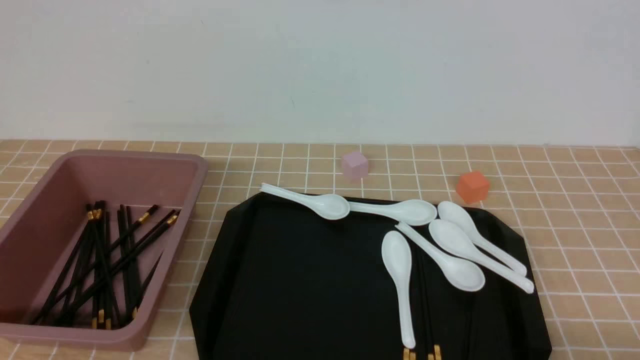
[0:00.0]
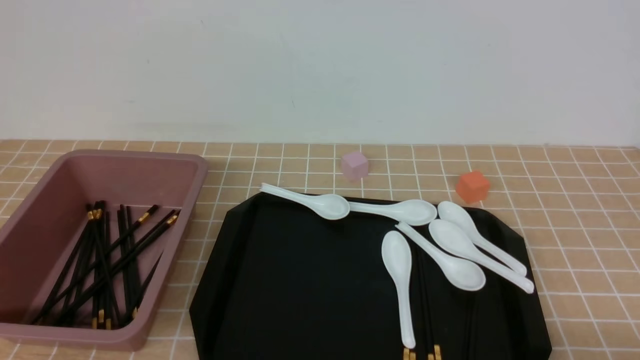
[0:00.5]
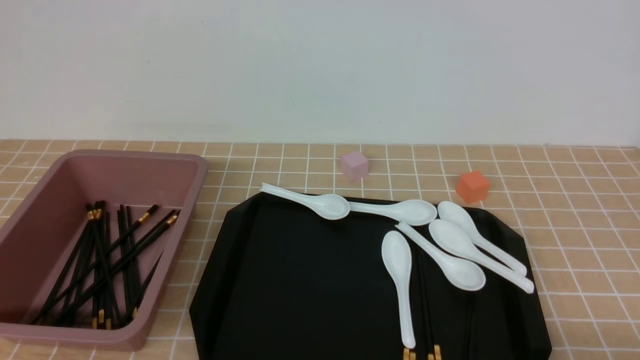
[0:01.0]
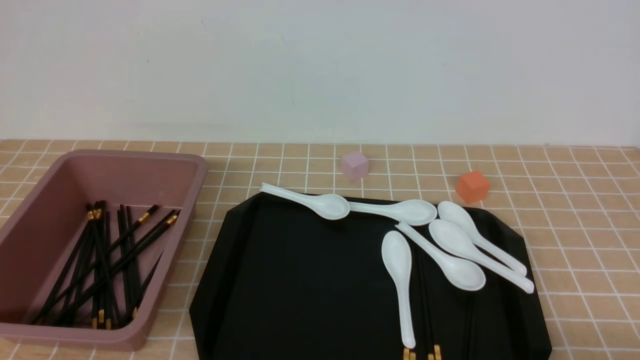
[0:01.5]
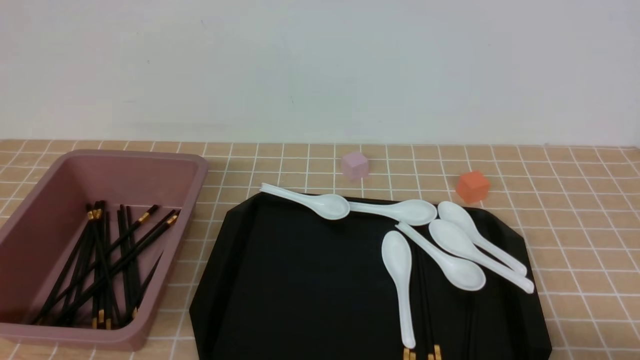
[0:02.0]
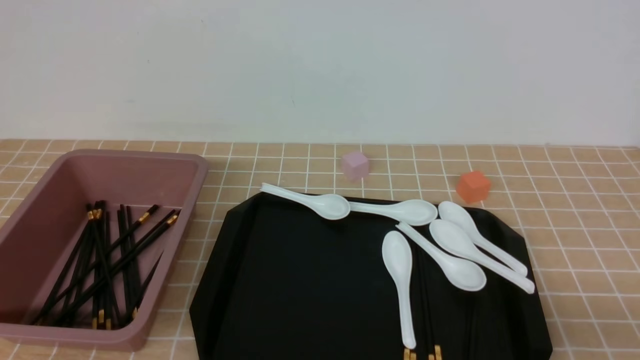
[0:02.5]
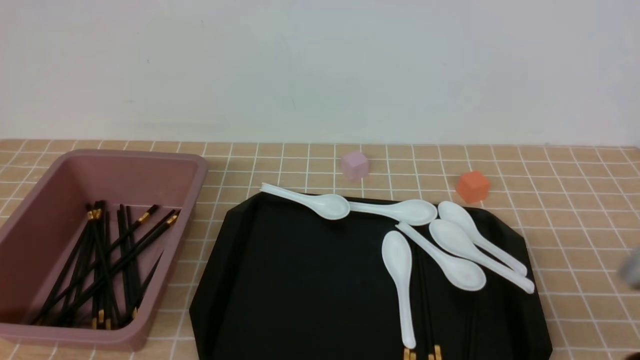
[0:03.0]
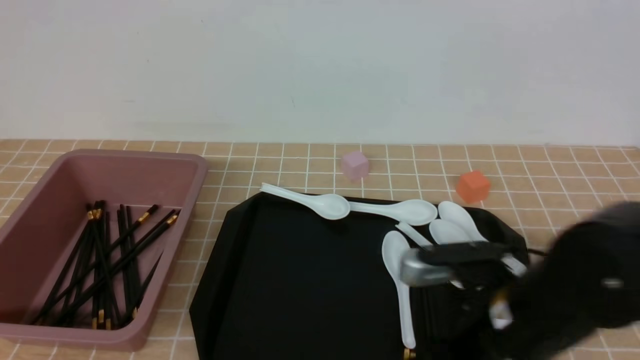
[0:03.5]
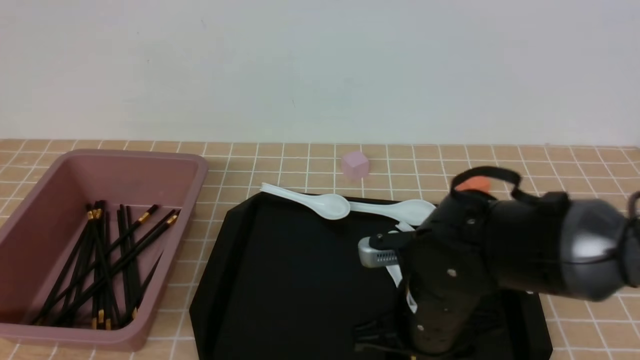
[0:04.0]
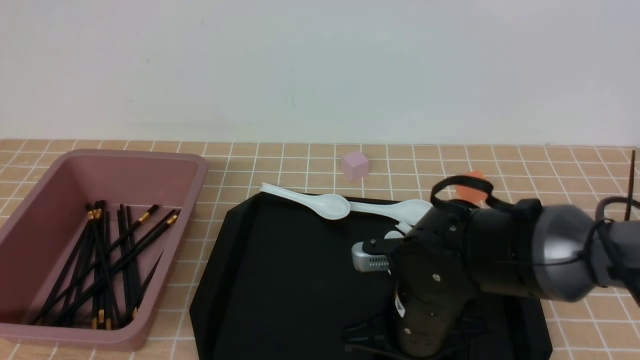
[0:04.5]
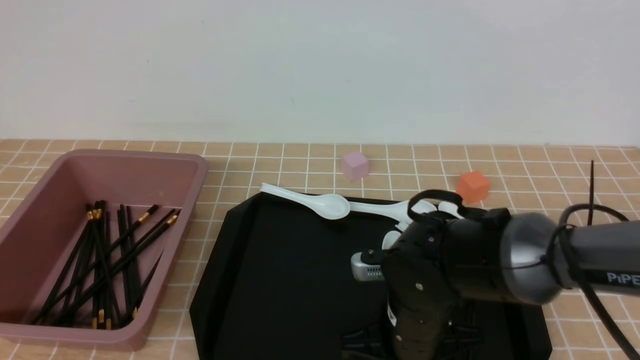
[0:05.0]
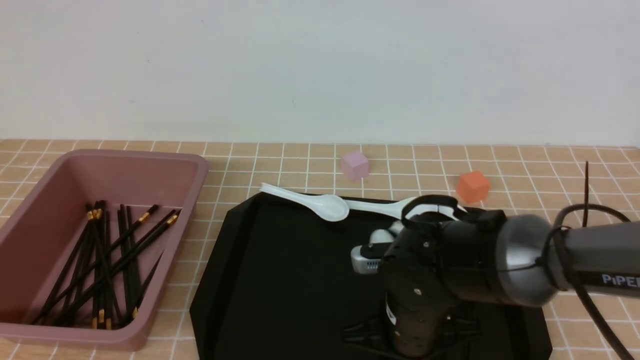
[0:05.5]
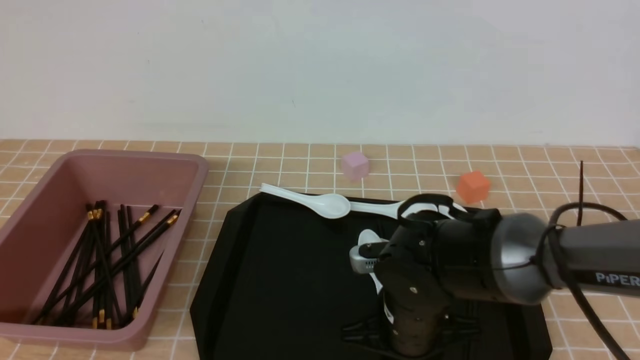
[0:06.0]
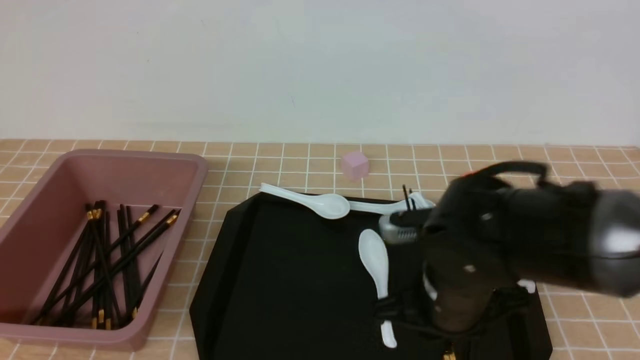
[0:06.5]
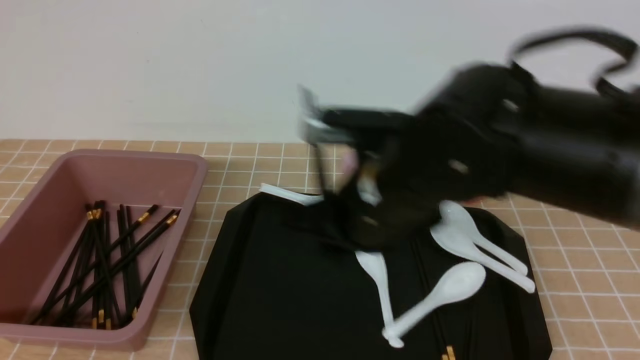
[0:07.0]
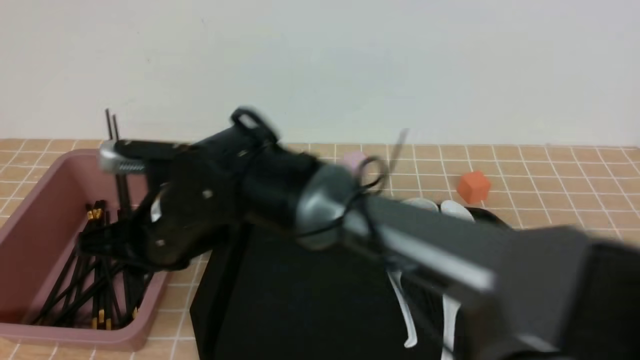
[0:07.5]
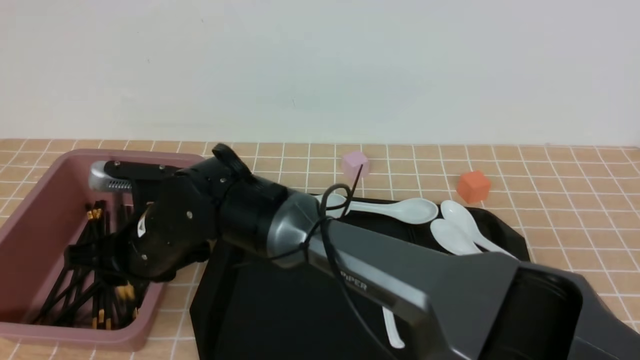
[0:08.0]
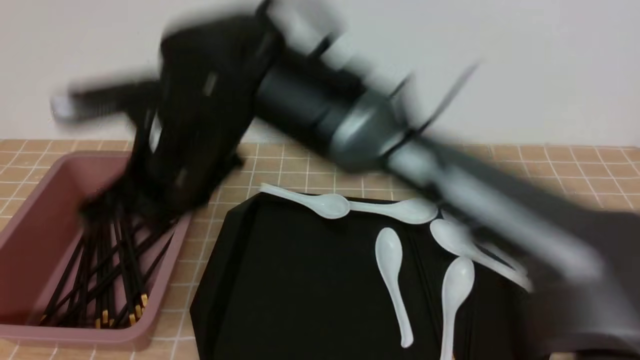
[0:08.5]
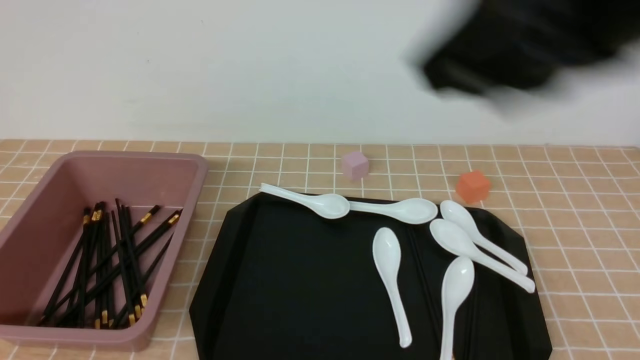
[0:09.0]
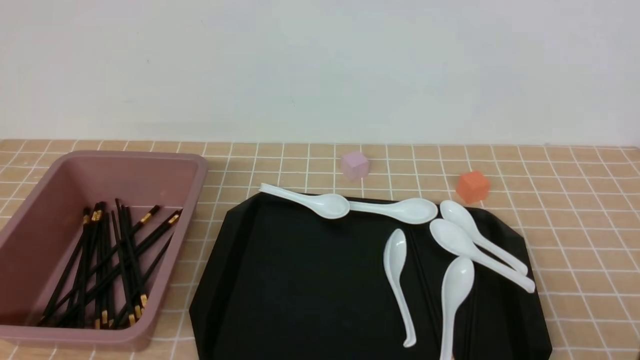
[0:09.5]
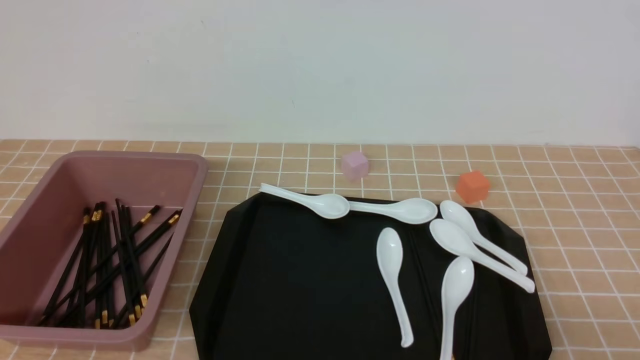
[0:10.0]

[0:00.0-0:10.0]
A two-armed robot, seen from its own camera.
Step, 0:00.0 to 0:06.5: use the right arm to grab a pair of chopsticks.
Step, 0:07.0 to 0:08.0: use the right arm to put the chopsticks into the lunch box.
0:02.0 to 0:04.0: The right gripper shifts about 25 cm to the left and forward, and closes and opens again.
0:04.0 to 0:06.0: The right gripper ends up approximately 5 cm from where it was, and closes.
0:06.0 to 0:08.0: The right gripper is displaced to the left by approximately 25 cm.
0:08.0 to 0:10.0: The right gripper heads to the right and backward, covering some 50 cm, and closes its fingers.

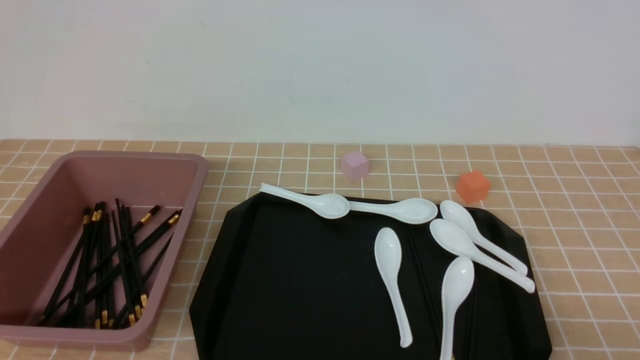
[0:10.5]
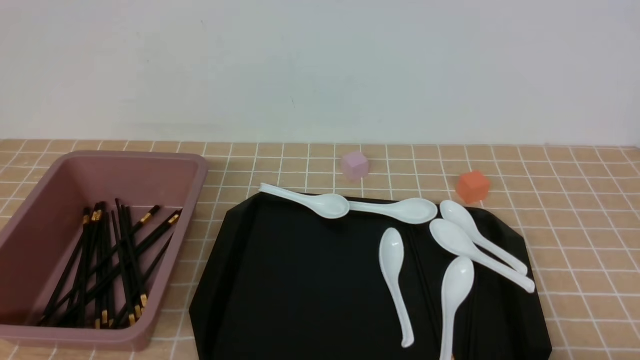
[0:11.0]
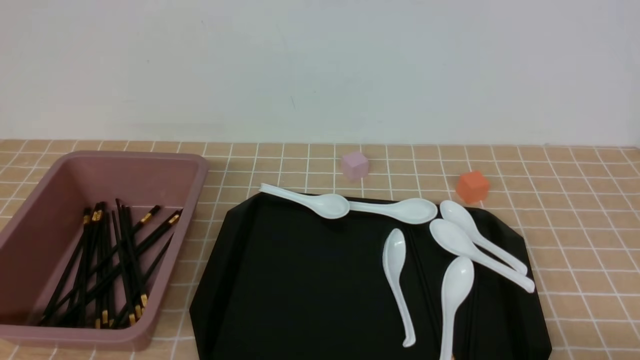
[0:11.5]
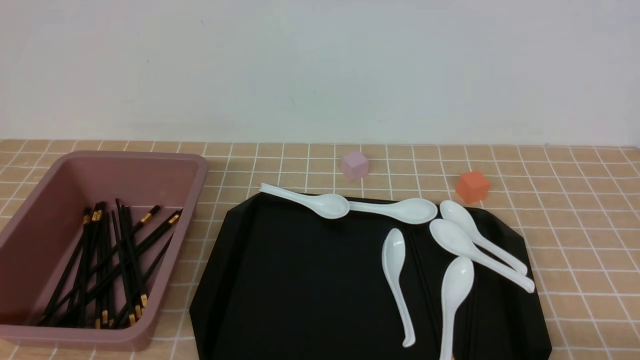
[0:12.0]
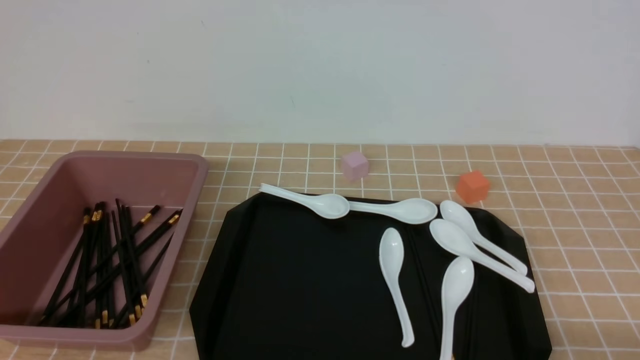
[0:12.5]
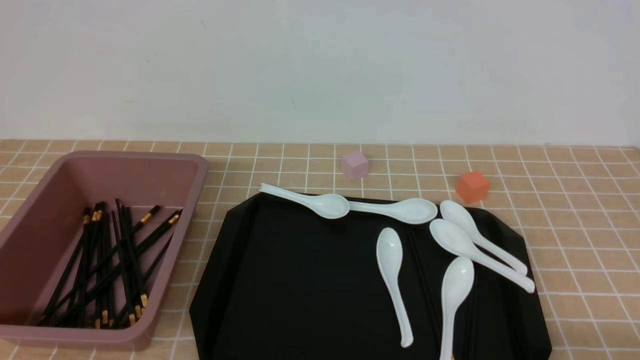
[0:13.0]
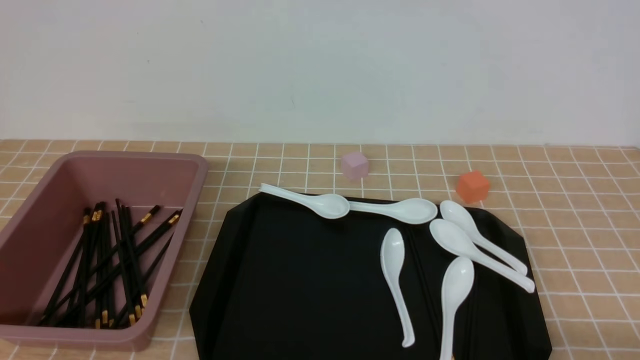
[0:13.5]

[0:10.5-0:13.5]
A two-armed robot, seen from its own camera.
0:10.5 to 0:12.0: The right gripper travels downward by roughly 5 cm.
0:12.0 to 0:13.5: Both grippers stay put.

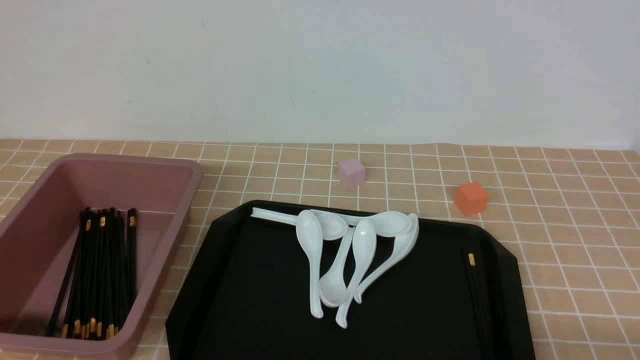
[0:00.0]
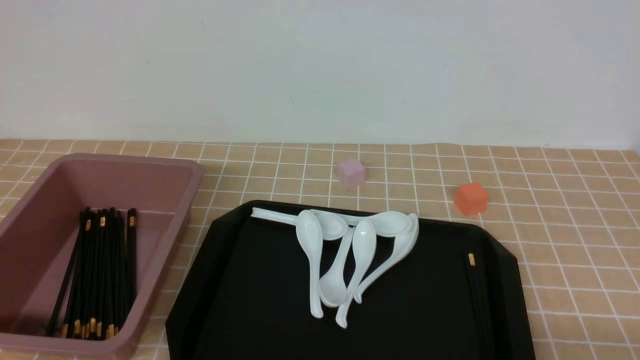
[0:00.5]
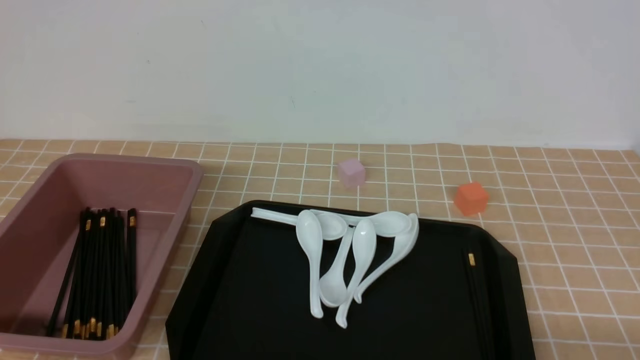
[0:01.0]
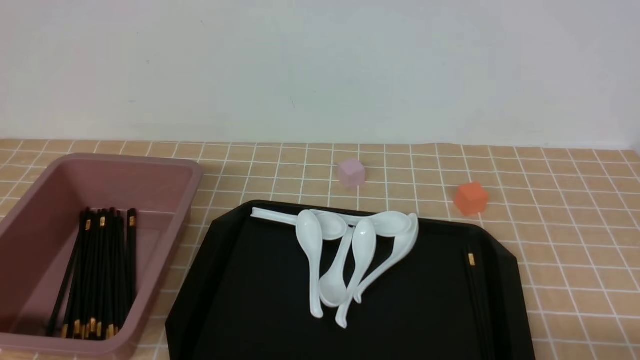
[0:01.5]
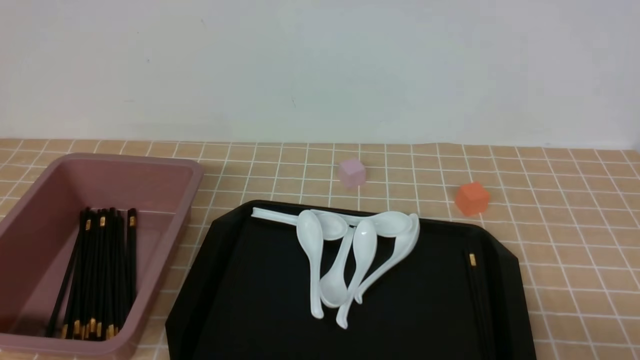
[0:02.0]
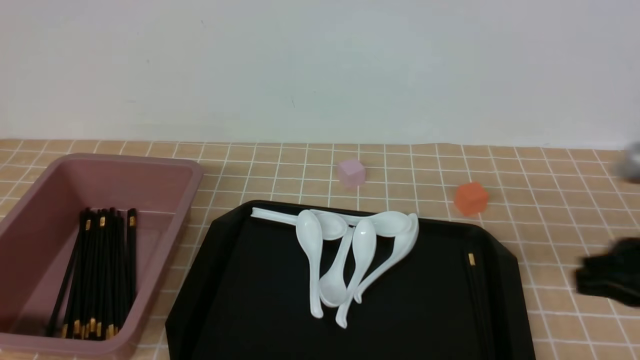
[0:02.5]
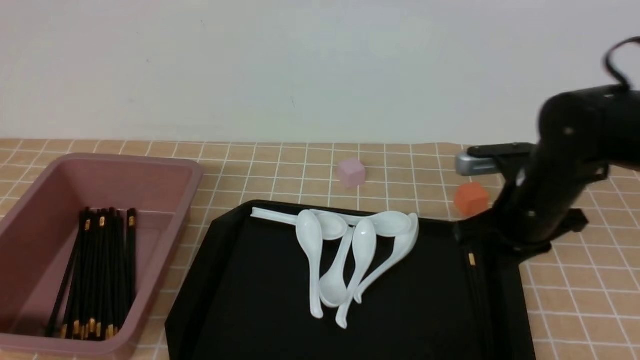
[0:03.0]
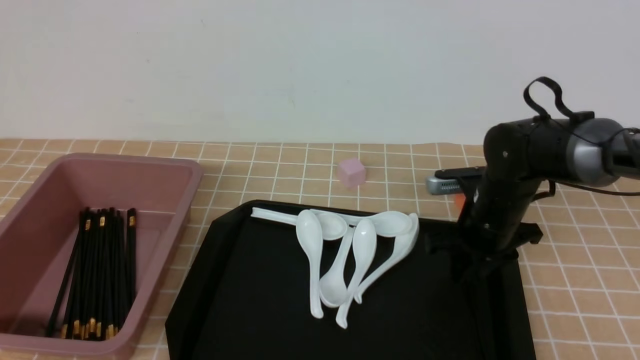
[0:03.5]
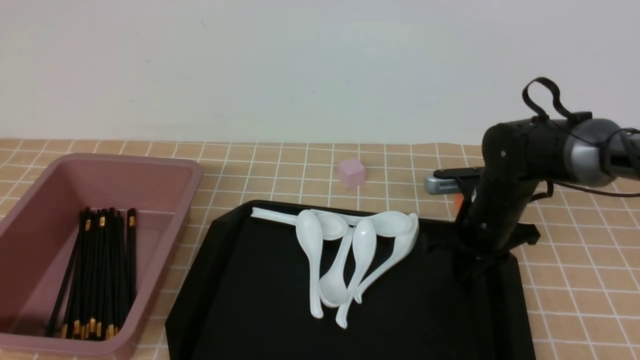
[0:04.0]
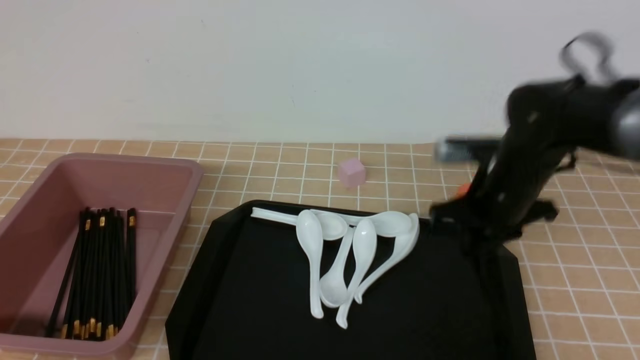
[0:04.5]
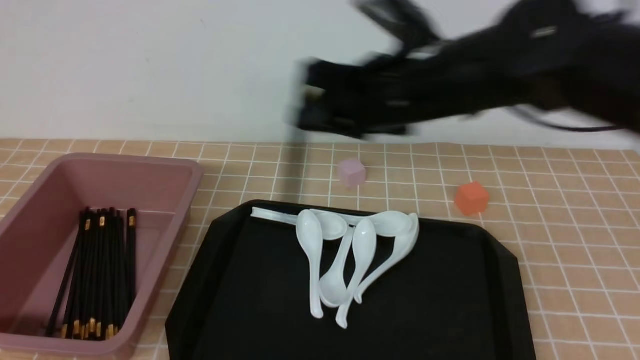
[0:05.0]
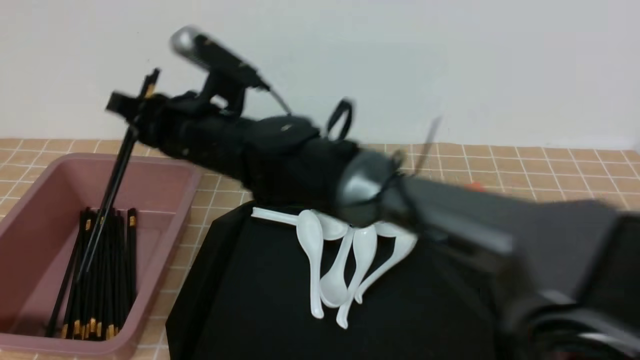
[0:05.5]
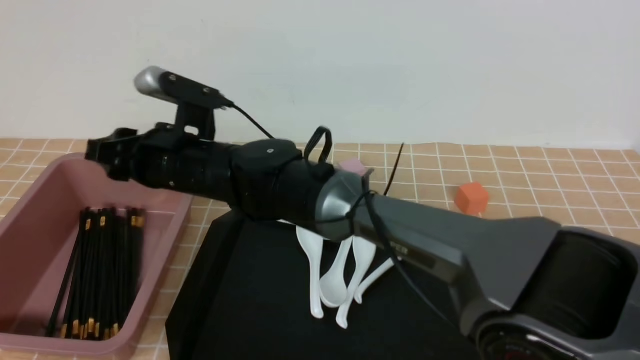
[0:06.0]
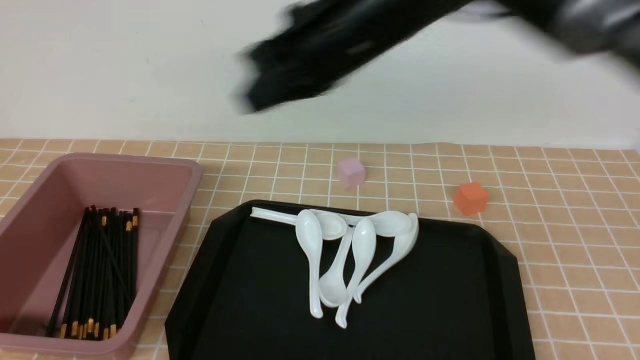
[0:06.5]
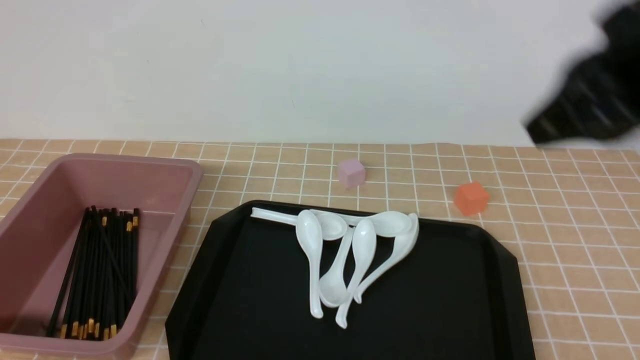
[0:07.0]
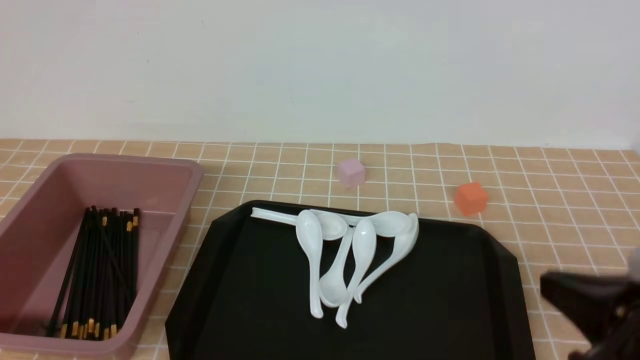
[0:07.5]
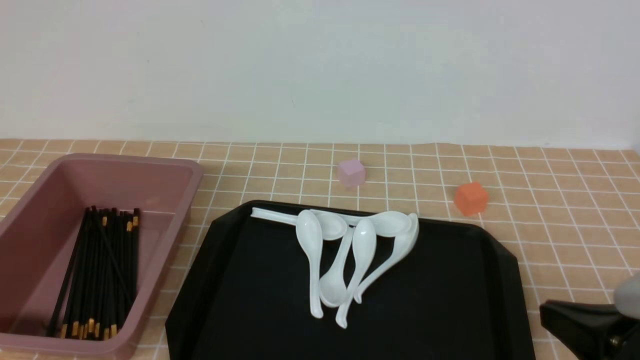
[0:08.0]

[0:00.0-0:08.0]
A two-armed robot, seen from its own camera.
Step, 0:00.0 to 0:04.5: use the right arm to grab a pair of chopsticks.
Step, 0:05.0 to 0:06.0: use the right arm to put the chopsticks into the lunch box.
0:02.0 to 0:04.0: The right gripper moves forward, about 35 cm, and closes and opens again.
0:04.0 to 0:06.0: The right gripper heads to the left, covering approximately 30 cm.
0:06.0 to 0:08.0: The right gripper shifts some 40 cm to the right and backward, and closes its fingers.
